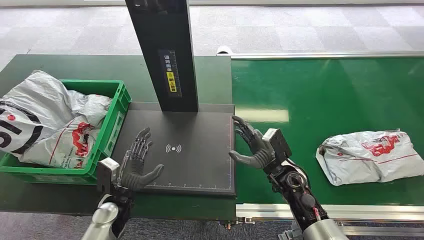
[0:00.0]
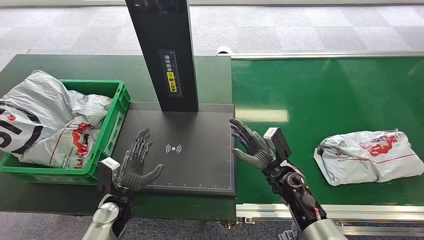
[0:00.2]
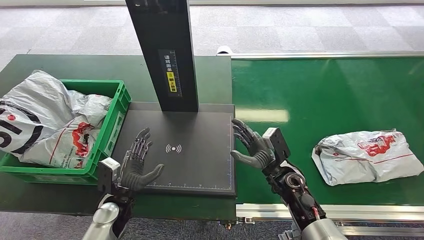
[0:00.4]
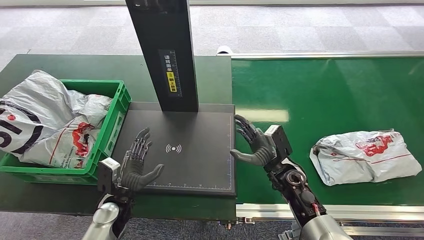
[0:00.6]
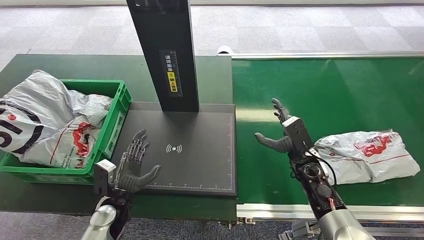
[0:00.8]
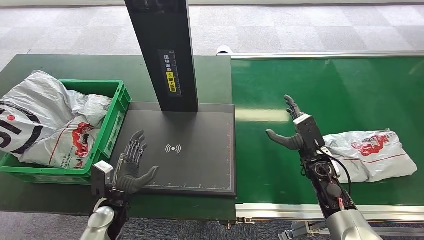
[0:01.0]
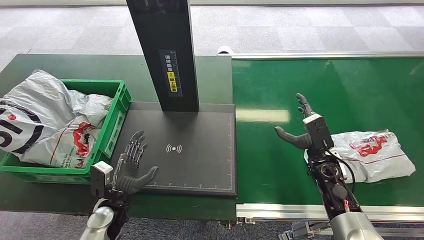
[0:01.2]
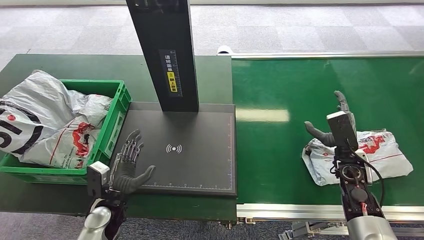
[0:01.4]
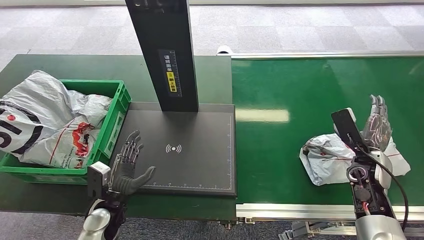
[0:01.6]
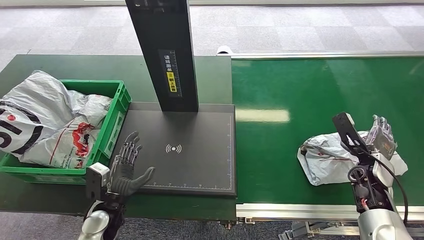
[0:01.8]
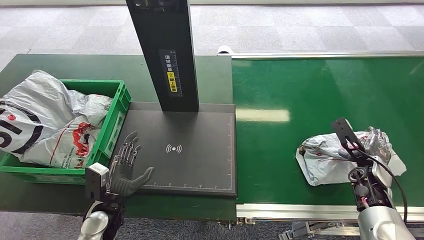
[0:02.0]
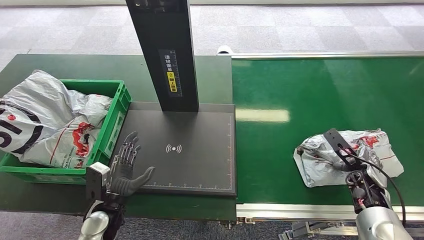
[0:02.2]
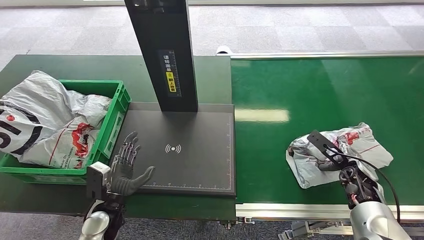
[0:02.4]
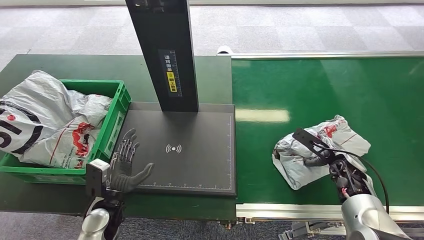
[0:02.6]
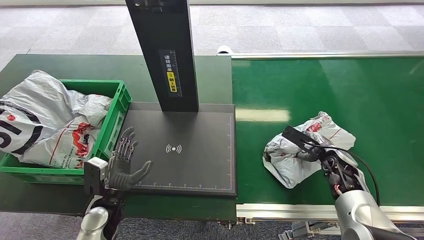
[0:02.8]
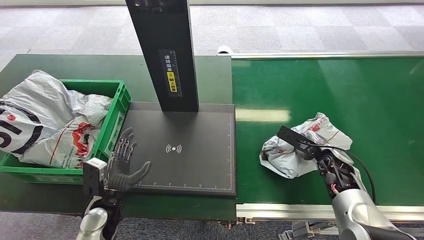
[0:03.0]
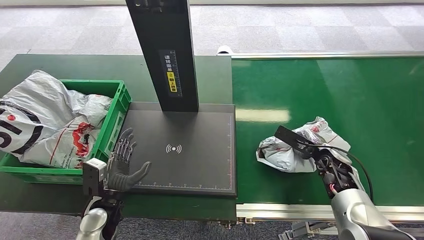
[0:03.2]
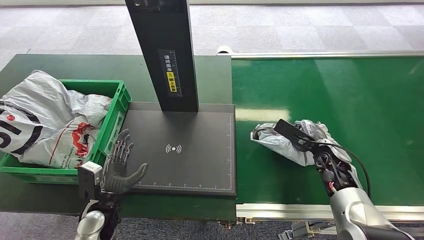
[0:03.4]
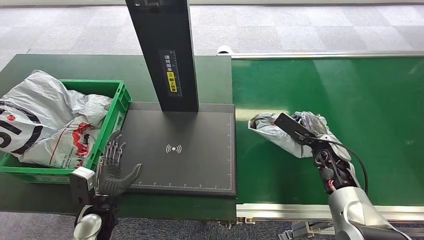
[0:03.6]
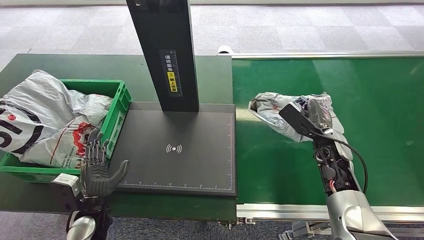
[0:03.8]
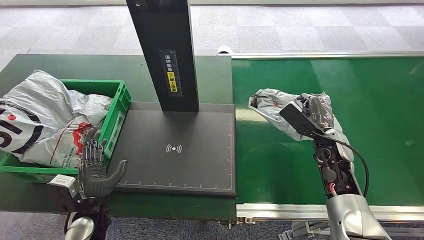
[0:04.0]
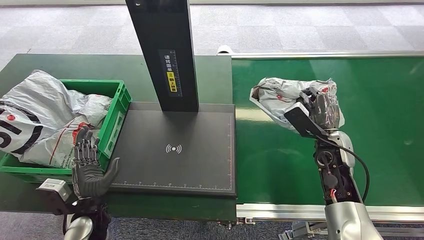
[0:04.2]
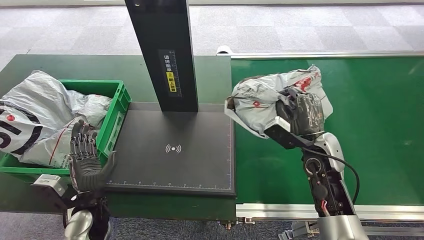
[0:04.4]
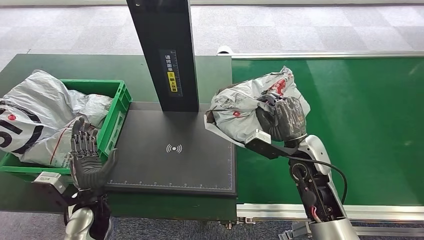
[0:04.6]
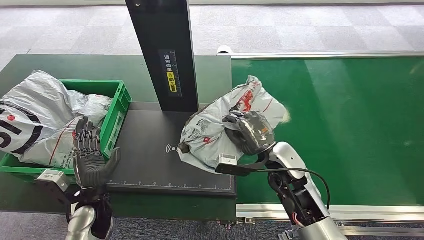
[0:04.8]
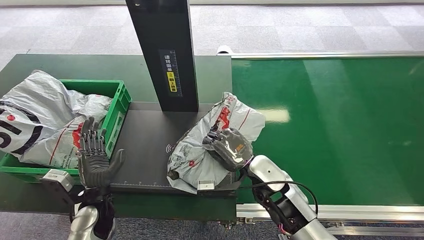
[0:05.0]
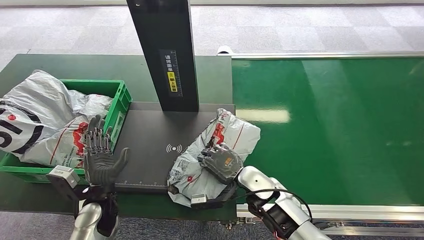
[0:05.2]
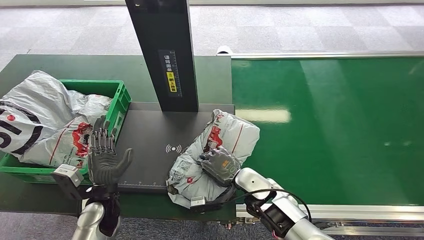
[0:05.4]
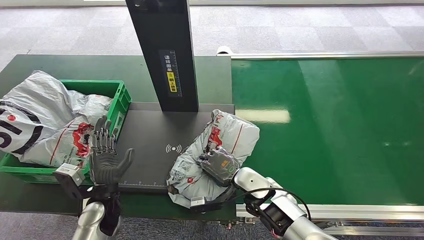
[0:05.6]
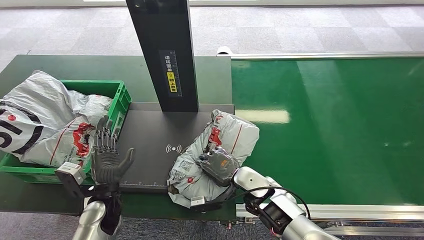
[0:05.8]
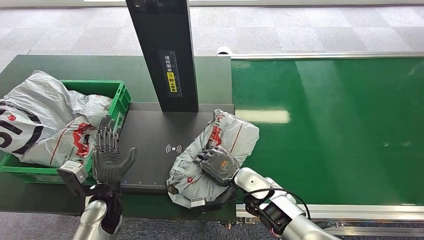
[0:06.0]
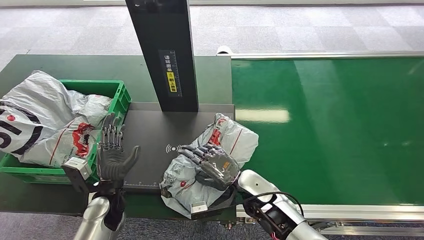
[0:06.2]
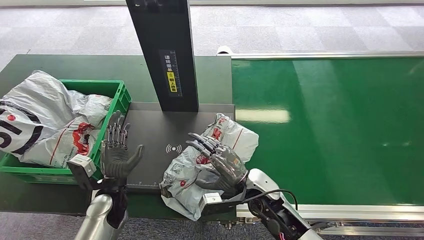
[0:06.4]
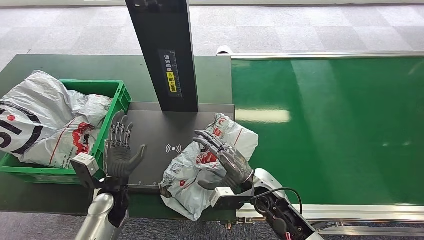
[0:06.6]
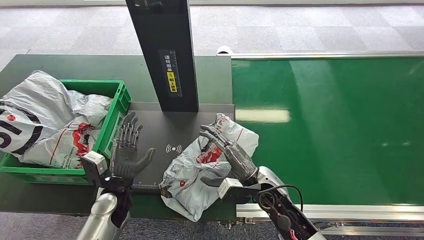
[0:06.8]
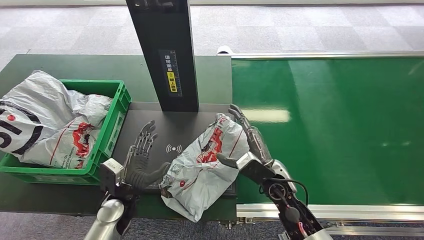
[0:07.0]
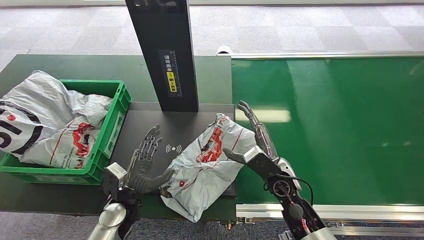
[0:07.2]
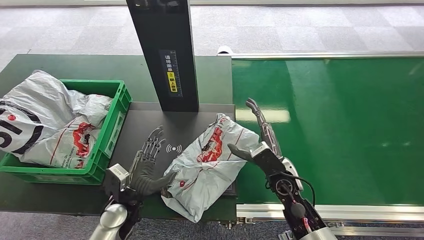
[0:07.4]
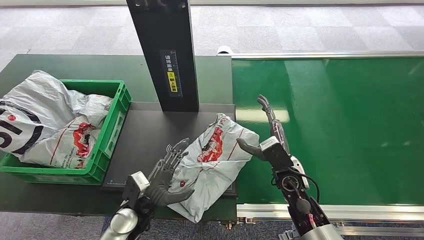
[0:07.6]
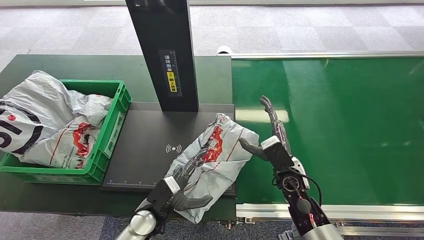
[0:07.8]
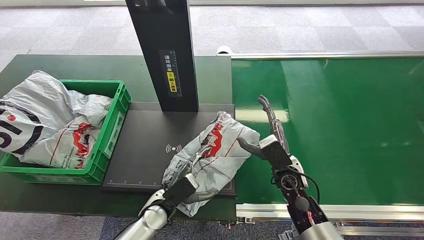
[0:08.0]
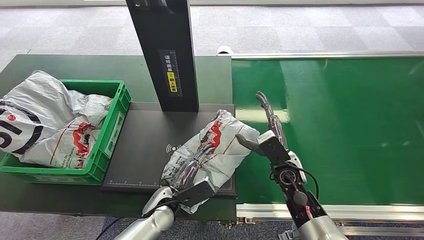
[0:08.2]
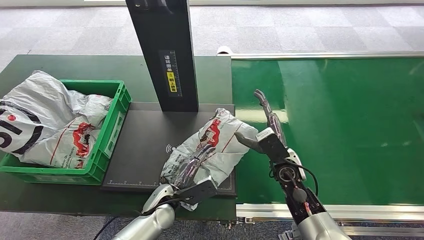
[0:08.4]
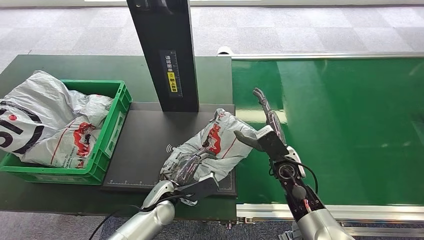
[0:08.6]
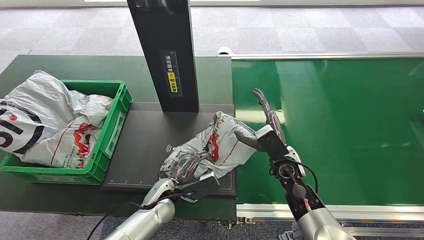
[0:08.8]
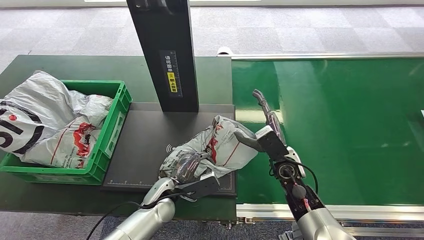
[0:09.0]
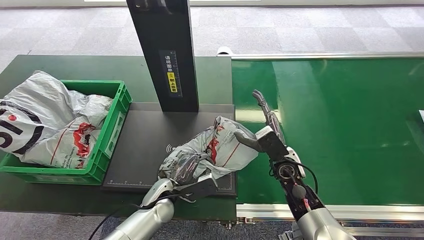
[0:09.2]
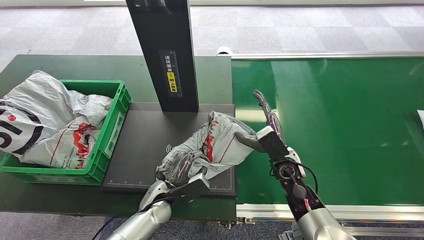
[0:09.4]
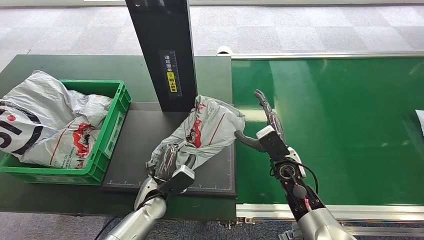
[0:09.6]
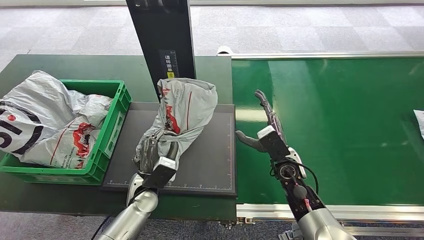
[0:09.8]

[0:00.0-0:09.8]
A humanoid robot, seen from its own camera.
Task of the whole recording: Weigh the package on the weighing device and place it in the left basket.
Step, 0:00.0 to 0:03.8: Pick up the package from the conveyor belt.
Step, 0:04.0 to 0:06.8: Place the package onto the inbound machine.
0:02.8 to 0:04.2: The right hand travels upward and to the left by some 10 cm.
0:07.0 to 0:08.4: The left hand heads to the right, covering about 10 cm, while the right hand ends up some 5 cm from where it was.
0:08.4 to 0:09.8: The left hand ends up some 5 cm from where it was.

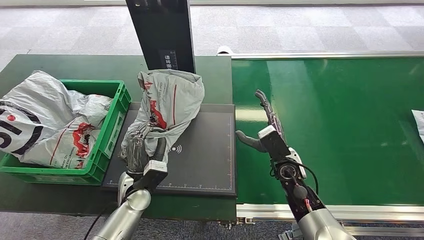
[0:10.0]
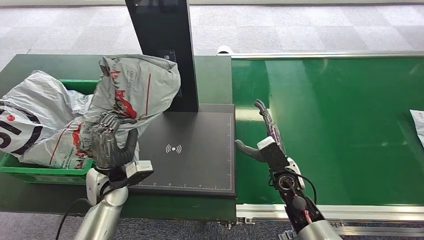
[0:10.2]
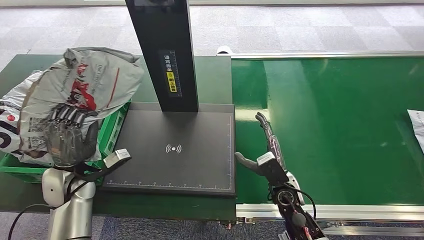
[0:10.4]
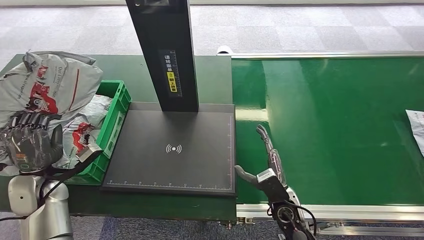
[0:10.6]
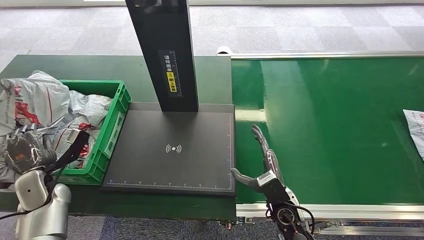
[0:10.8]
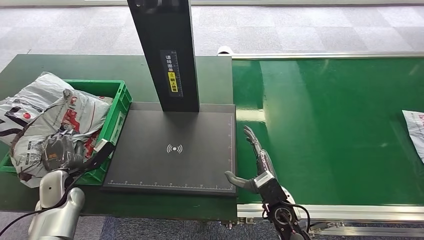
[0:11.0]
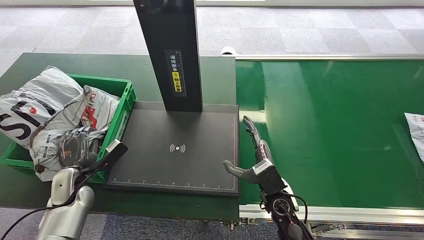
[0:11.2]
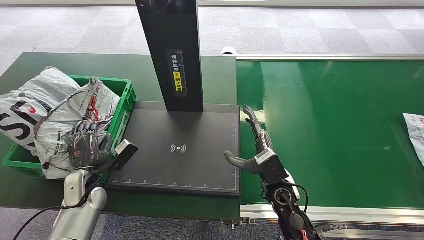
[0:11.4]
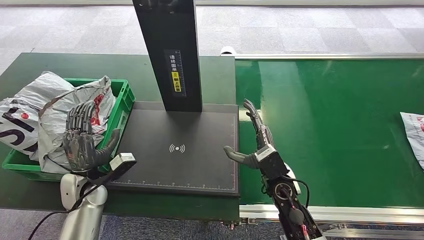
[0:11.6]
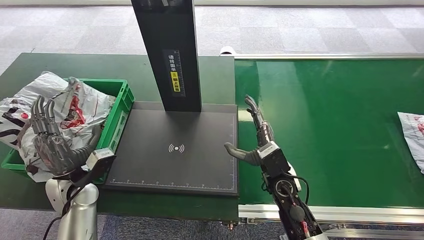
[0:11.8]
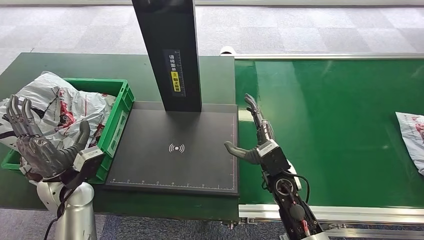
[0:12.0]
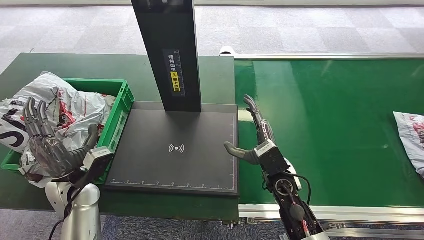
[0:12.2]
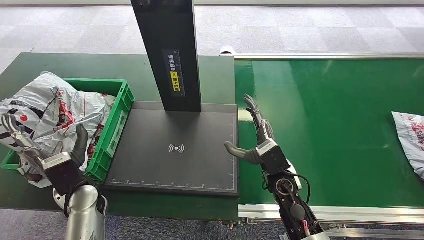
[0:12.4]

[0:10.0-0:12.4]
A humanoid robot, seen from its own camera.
Task of the whole recording: Weigh the package on the weighing device and place it in the left basket.
Step, 0:10.2 to 0:12.4: Place the package into the parcel locker.

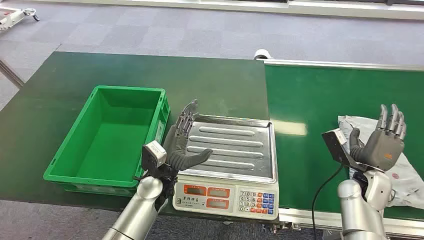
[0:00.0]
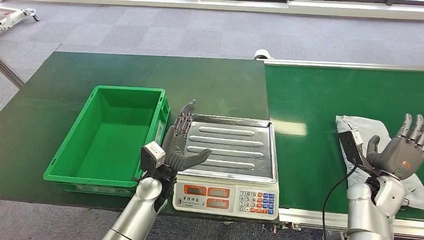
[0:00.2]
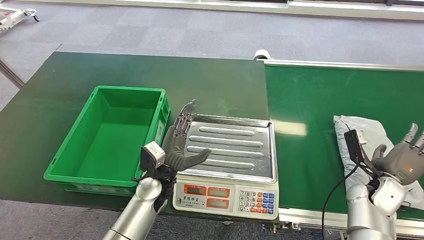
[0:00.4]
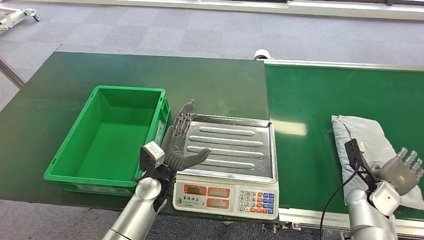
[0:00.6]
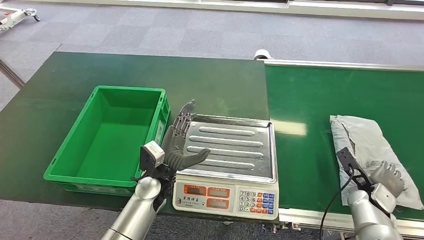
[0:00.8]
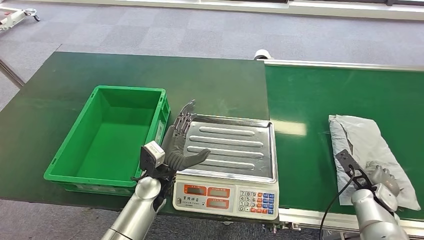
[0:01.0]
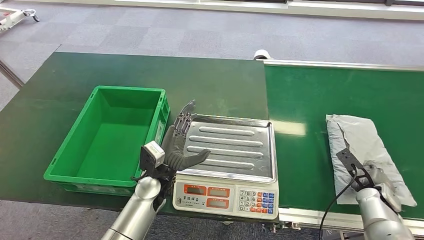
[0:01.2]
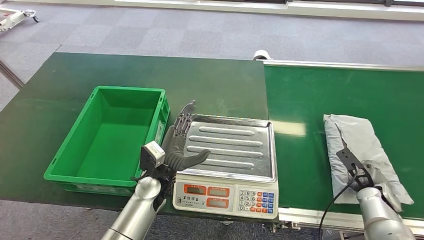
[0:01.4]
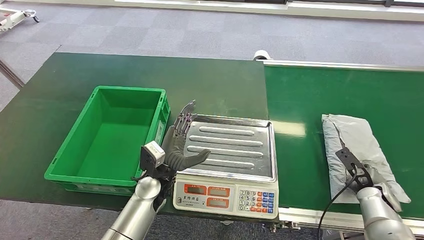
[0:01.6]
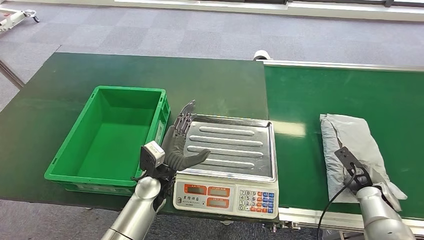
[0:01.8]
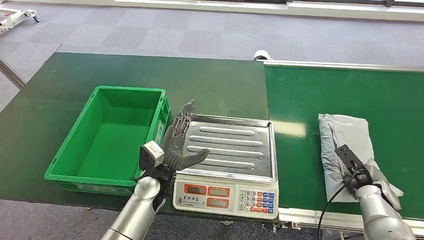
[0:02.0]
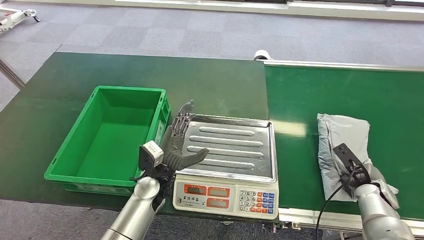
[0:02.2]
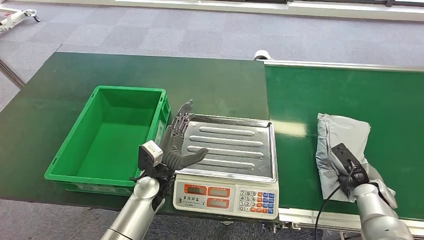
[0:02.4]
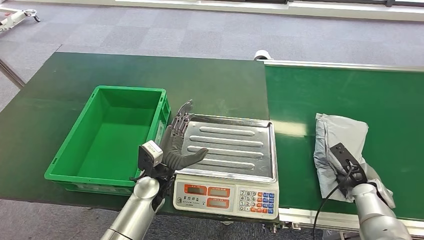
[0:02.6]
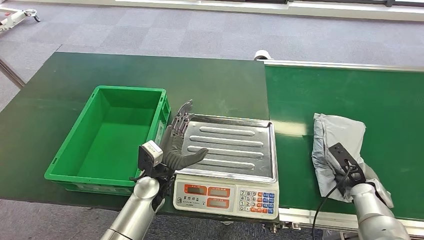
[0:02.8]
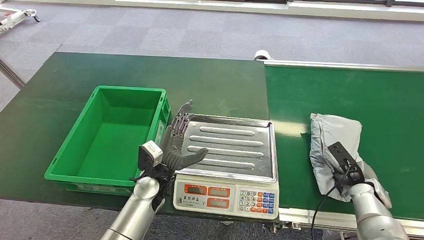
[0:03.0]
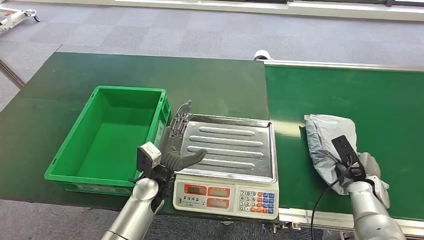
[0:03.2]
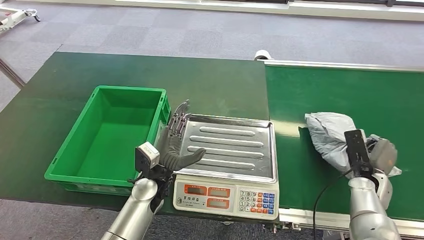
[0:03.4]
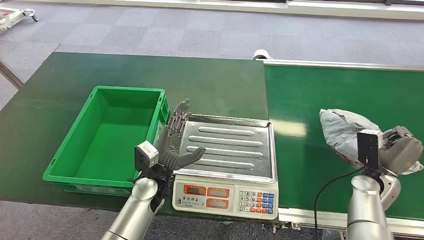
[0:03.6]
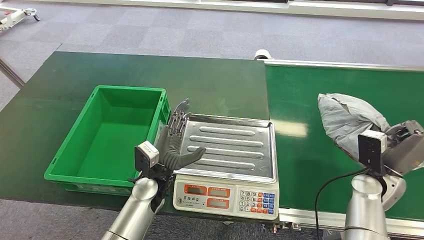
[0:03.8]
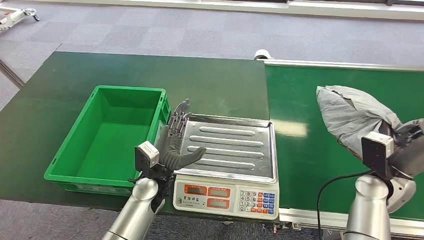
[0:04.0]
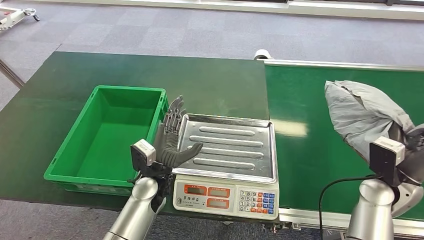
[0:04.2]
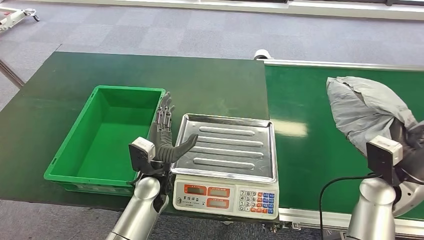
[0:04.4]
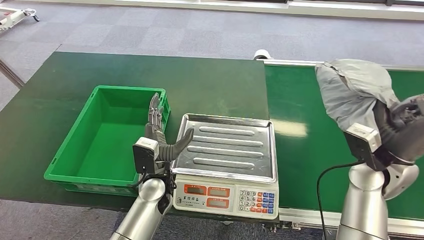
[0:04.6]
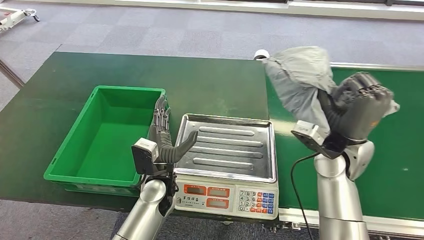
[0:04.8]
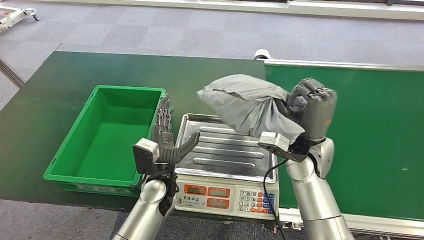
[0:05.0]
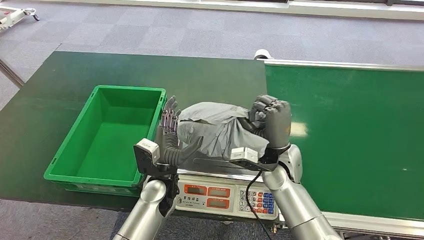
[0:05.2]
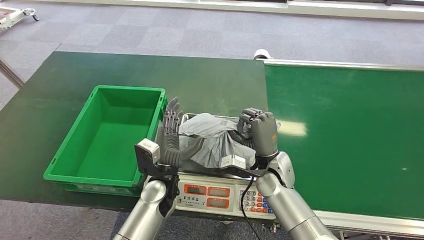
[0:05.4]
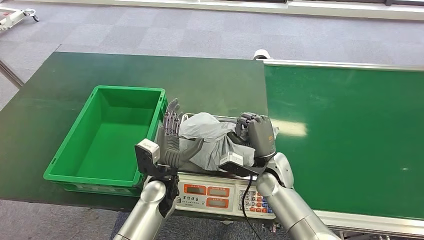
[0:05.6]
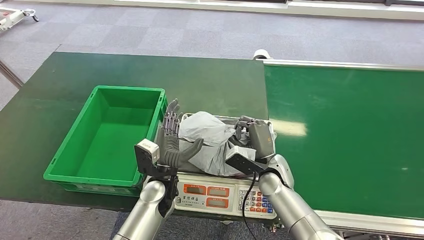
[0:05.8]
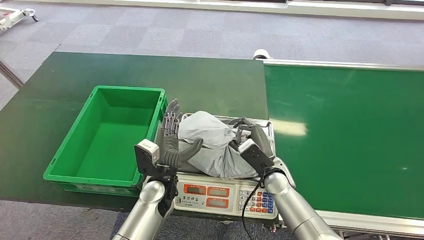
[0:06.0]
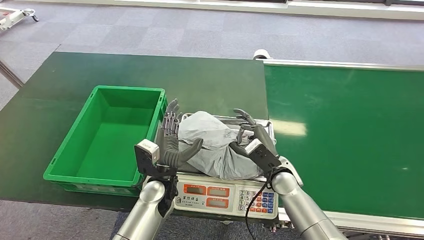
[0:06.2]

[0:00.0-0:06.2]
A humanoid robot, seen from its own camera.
Task of the whole recording: Weigh the package on the weighing device and place it in the left basket.
Step, 0:00.0 to 0:04.0: Pick up the package from the conveyor belt.
0:03.2 to 0:04.6: The right hand shifts roughly 20 cm upward and to the left.
